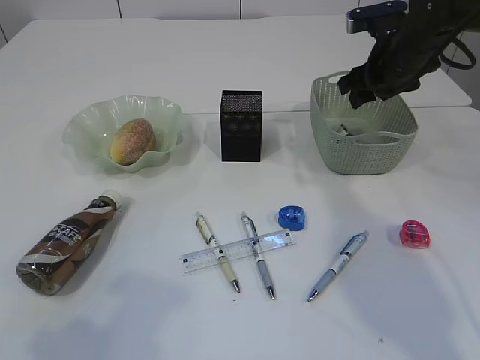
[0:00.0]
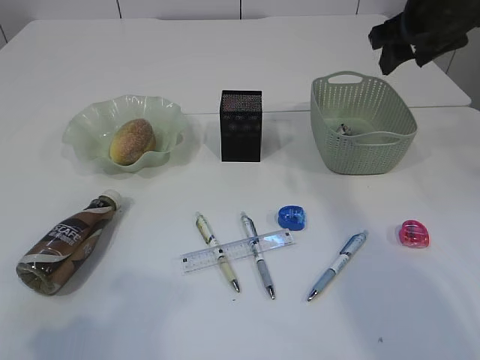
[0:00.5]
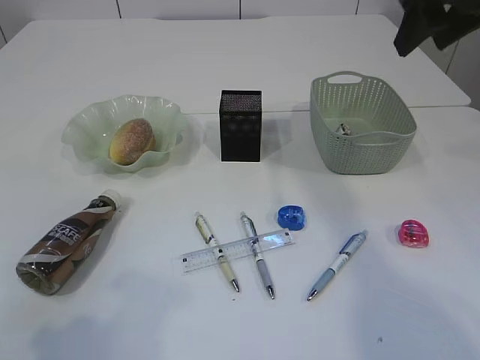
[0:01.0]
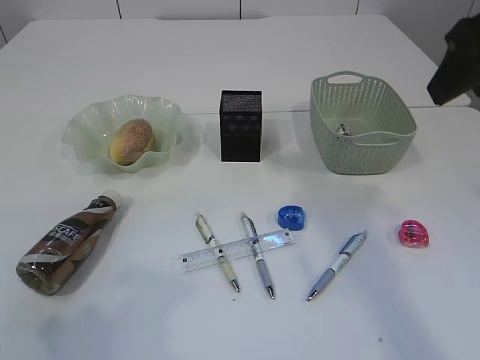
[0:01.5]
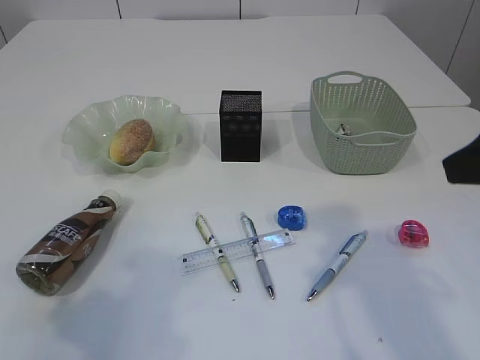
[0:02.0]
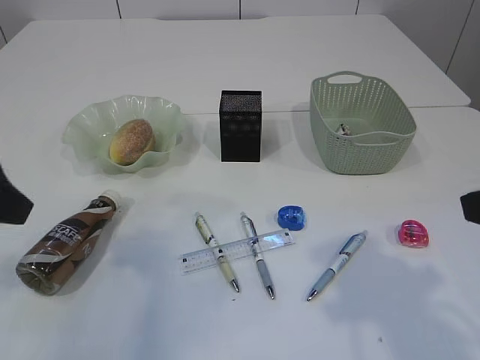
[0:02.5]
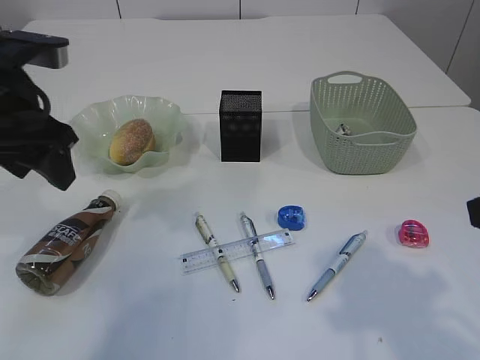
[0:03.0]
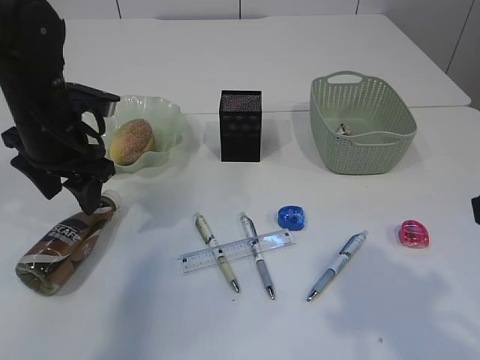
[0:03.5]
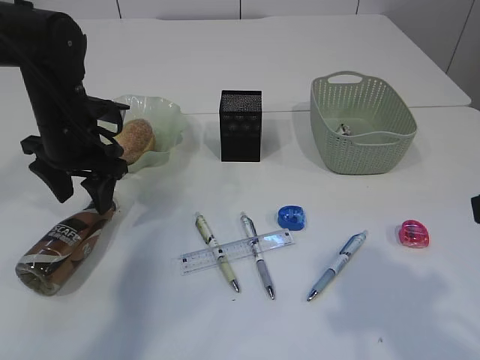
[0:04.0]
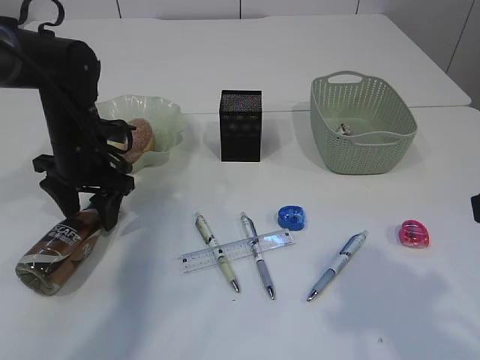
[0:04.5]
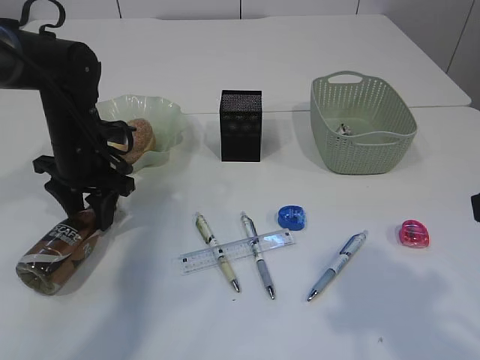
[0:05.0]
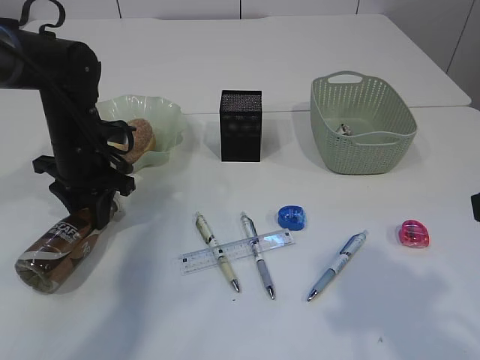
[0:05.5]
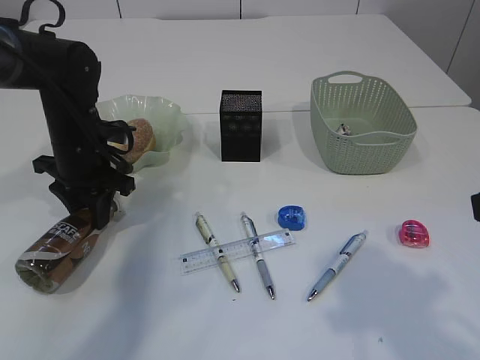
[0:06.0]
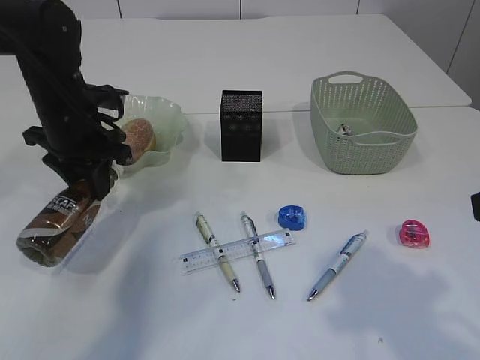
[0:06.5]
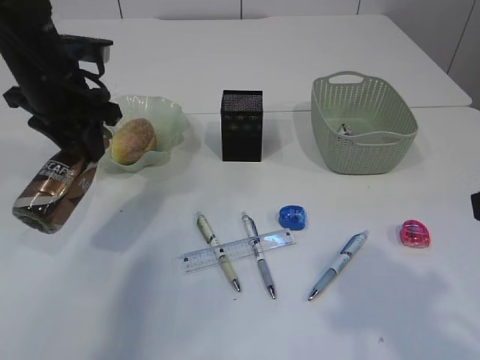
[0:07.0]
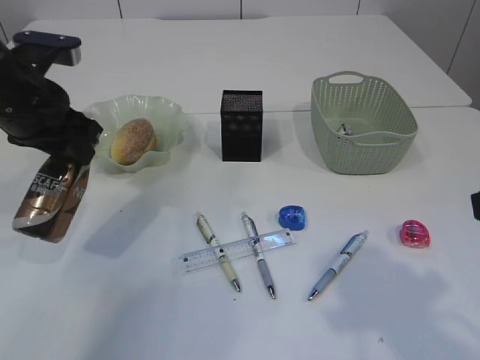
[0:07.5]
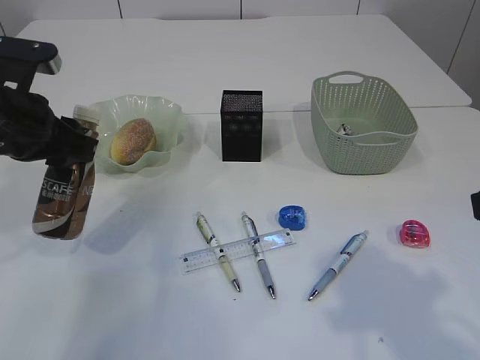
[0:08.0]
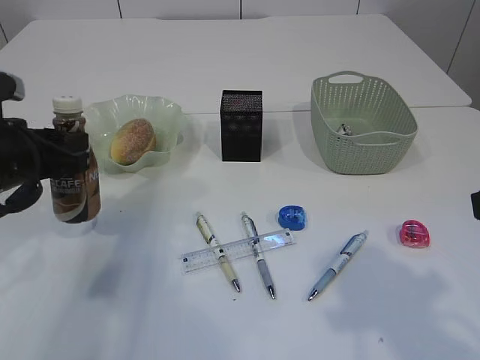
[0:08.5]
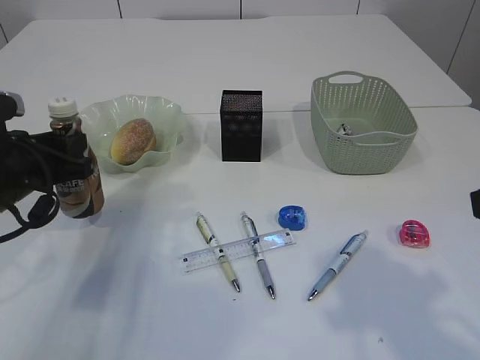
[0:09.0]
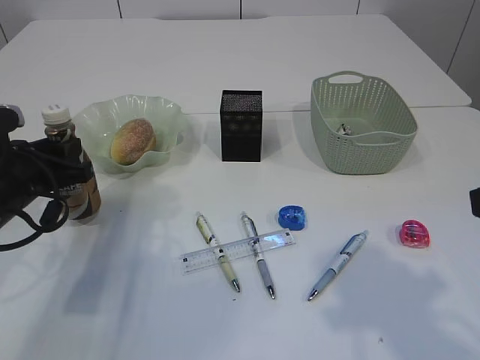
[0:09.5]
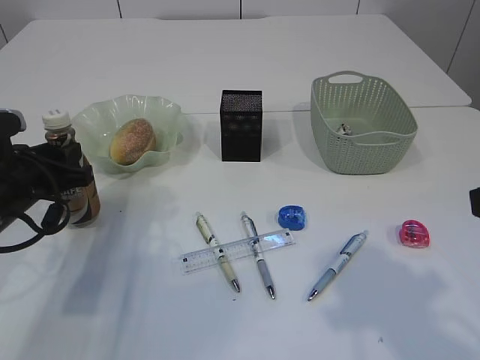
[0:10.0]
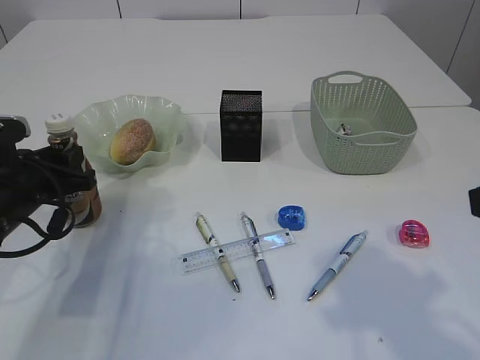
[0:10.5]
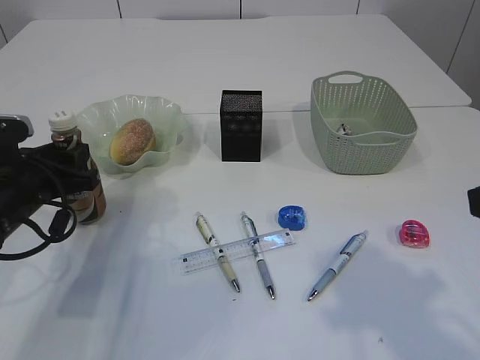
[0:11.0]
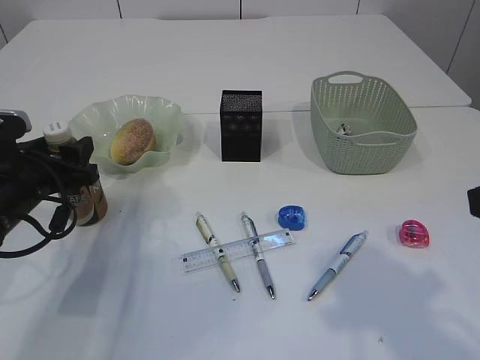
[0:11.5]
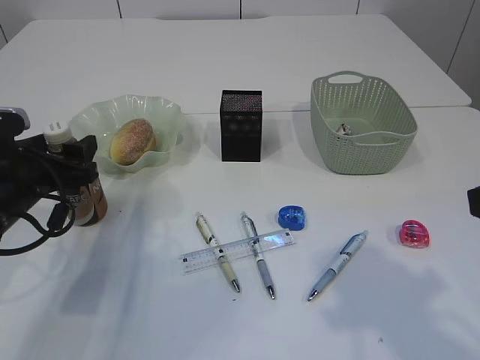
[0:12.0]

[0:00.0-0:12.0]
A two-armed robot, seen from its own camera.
Step, 0:00.5 to 0:06.5: Pick up the bottle with the left arm.
0:00.0 to 0:02.0: The right gripper travels backward by approximately 25 cm.
0:02.0 to 0:04.0: The left gripper goes approximately 30 cm forward. The right gripper moves backward, about 5 cm.
0:04.0 to 0:06.0: The left gripper closes up.
0:06.0 to 0:08.0: The left gripper shifts some 15 cm backward and upward.
0:08.0 to 0:10.0: The left gripper travels downward by about 10 cm.
0:10.0 to 0:12.0: The left gripper opens.

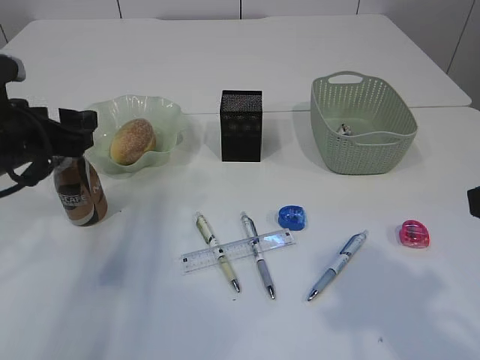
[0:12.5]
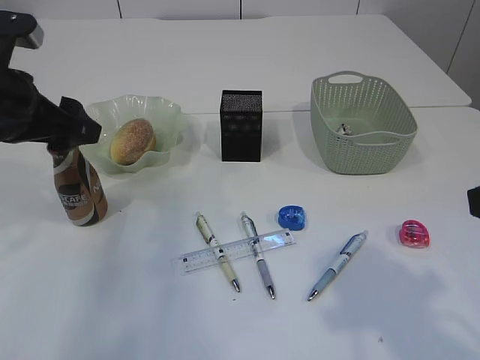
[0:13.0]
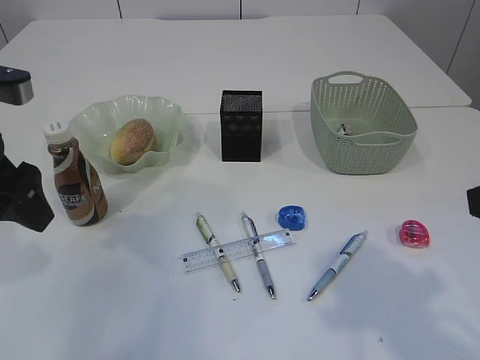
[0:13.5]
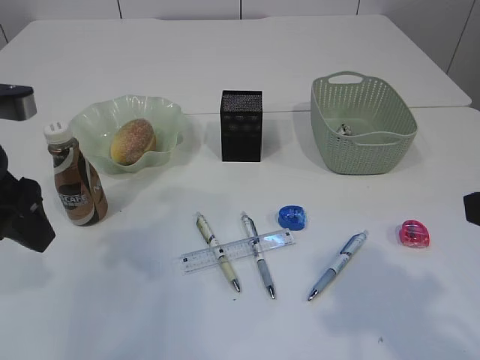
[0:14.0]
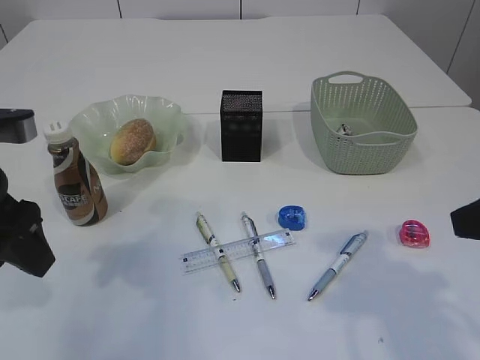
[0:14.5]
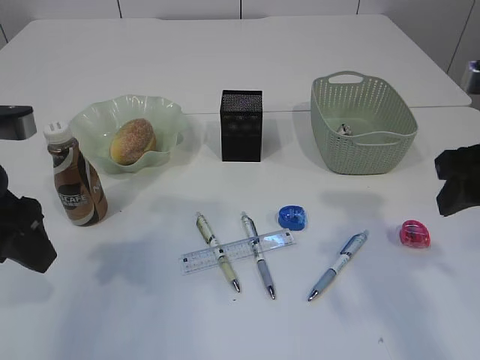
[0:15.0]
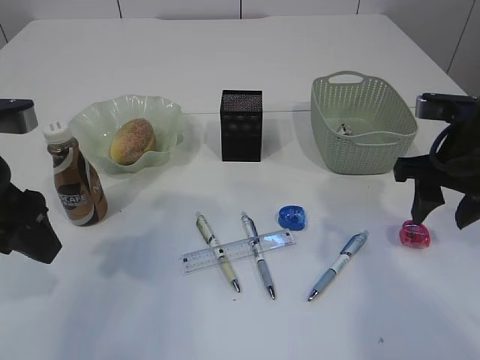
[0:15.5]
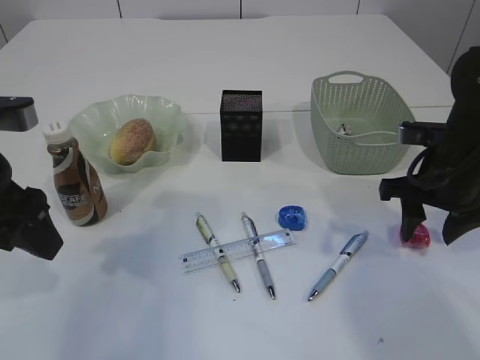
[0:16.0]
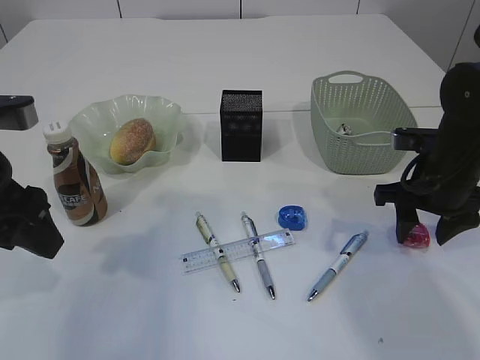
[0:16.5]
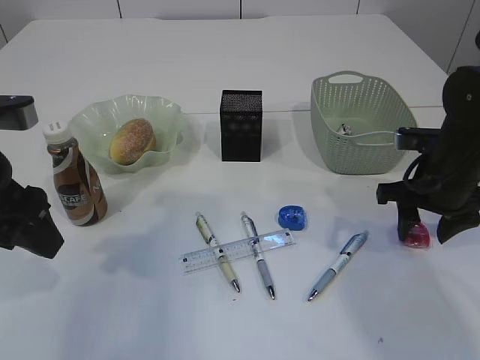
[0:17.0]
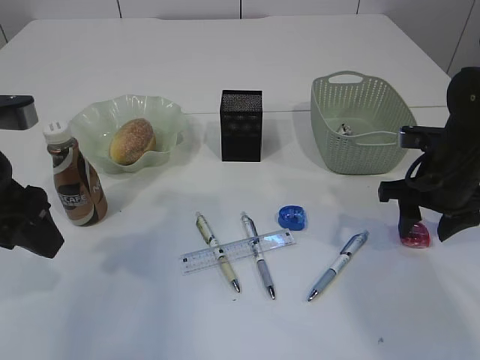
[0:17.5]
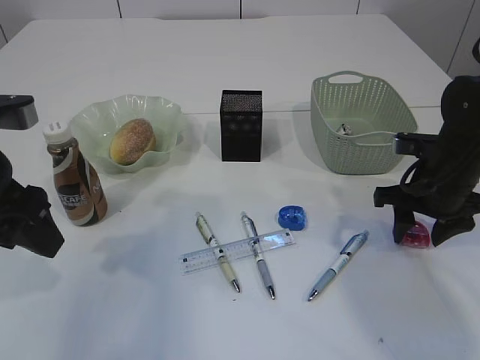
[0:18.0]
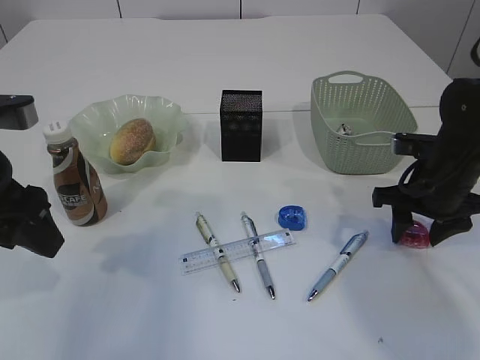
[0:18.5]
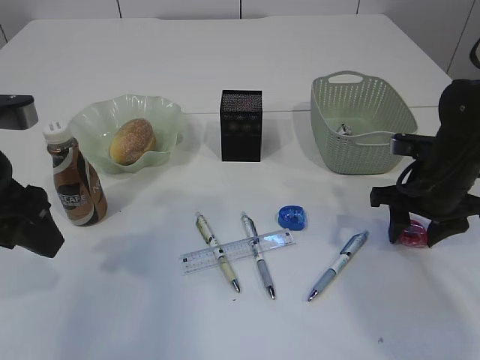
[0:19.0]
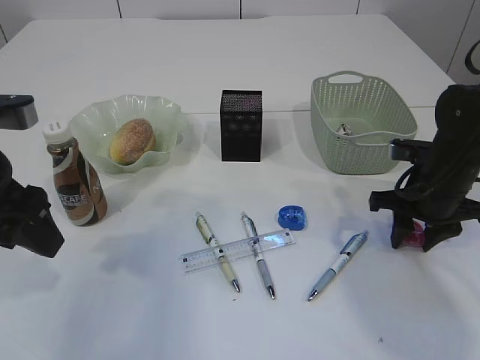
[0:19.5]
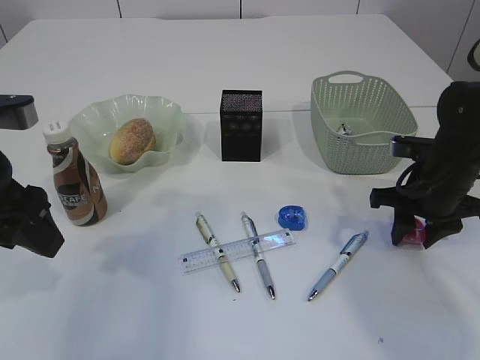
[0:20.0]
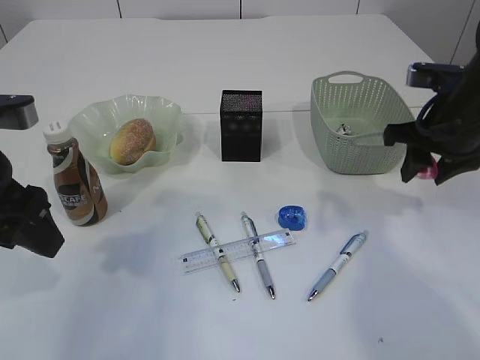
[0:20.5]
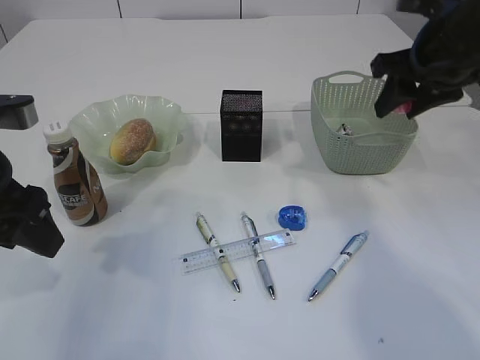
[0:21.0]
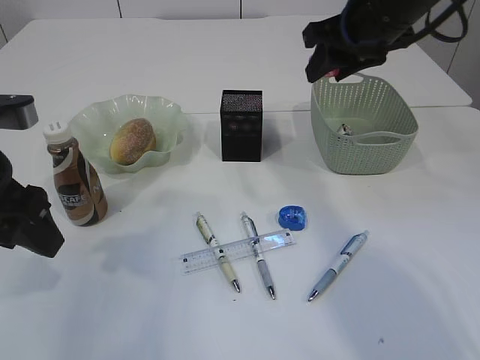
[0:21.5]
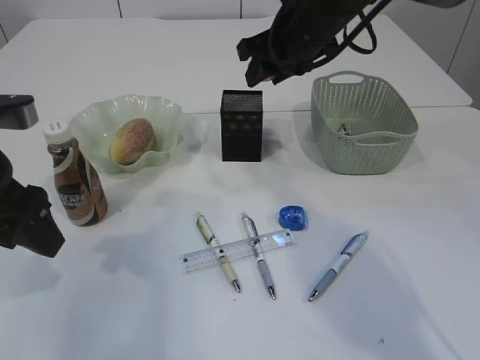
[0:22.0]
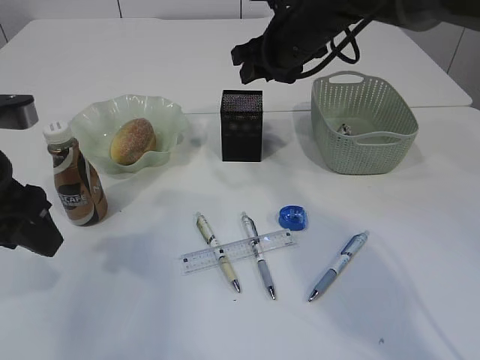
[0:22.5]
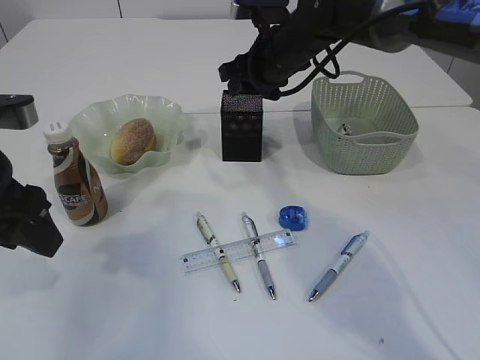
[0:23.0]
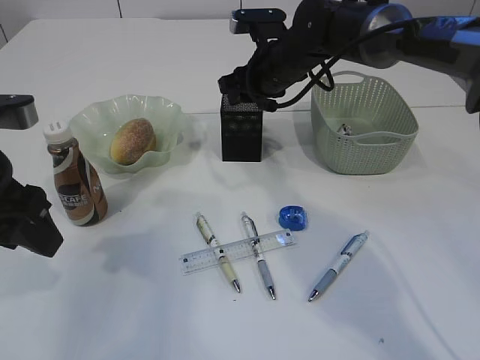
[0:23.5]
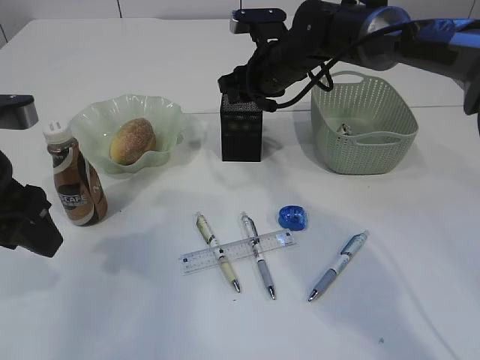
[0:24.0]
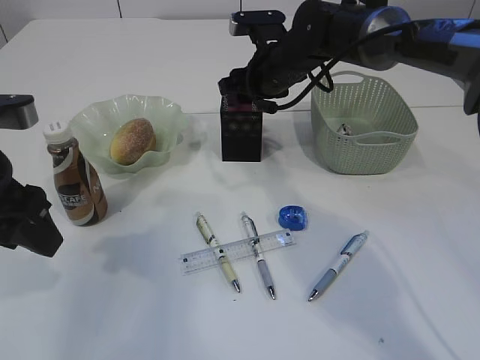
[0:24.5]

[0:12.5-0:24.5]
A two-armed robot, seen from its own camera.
Step, 0:13.5 to 0:20.5: Pick up the red pencil sharpener.
0:12.5 to 0:14.5: The left gripper is displaced backward by about 5 cm, and closes up.
0:14.5 to 0:16.5: The right gripper goes some 20 cm forward and downward.
0:16.5 to 0:18.5: The grippers move only a little.
0:18.5 to 0:20.5: The right gripper moves upward, approximately 10 cm.
0:20.5 to 0:22.5: The right gripper travels to the left and forward by about 20 cm.
0:22.5 to 0:24.5: The right gripper moves downward, roughly 5 cm.

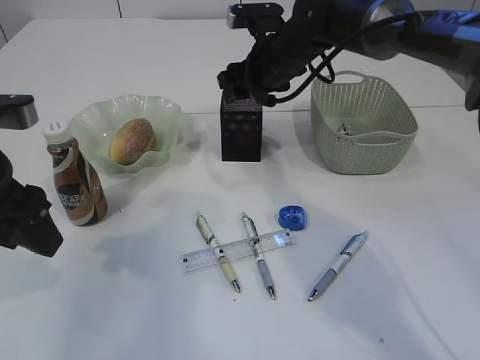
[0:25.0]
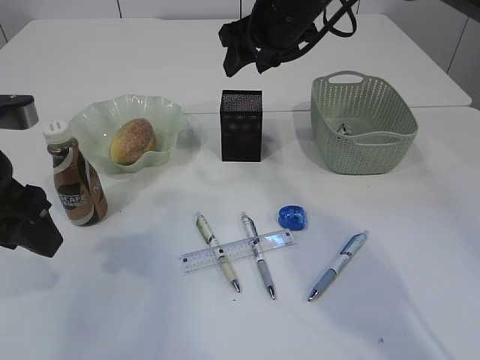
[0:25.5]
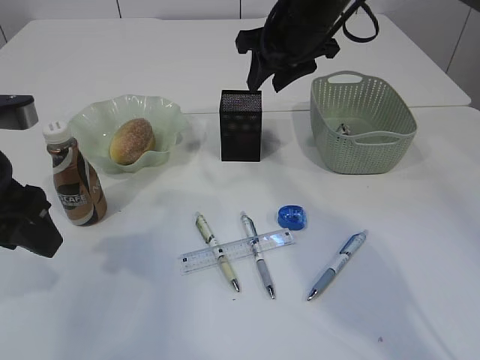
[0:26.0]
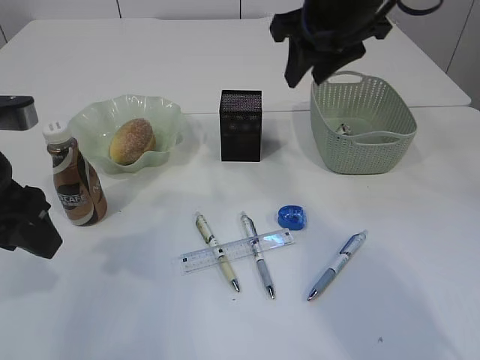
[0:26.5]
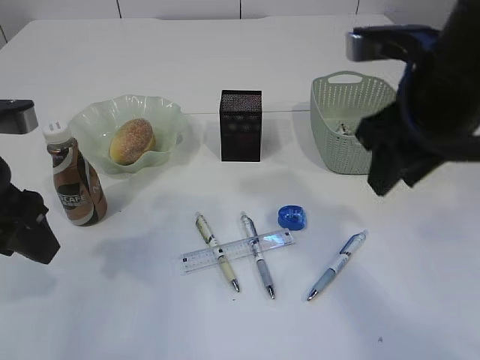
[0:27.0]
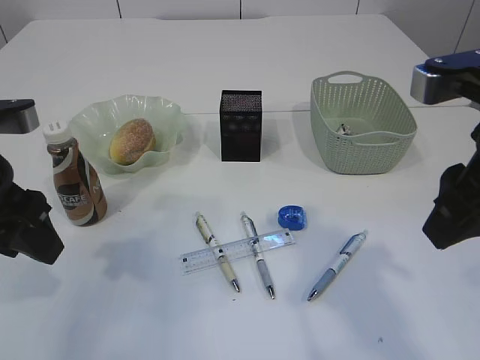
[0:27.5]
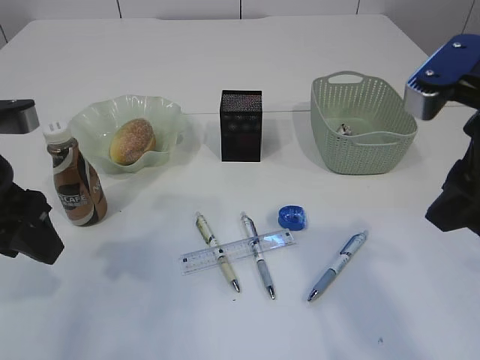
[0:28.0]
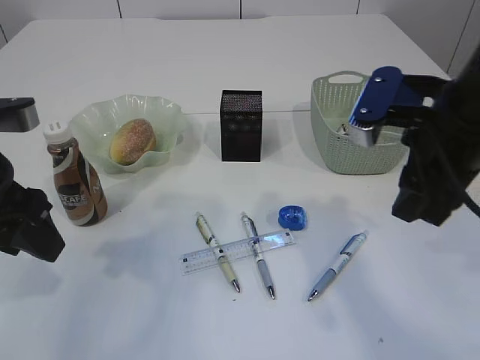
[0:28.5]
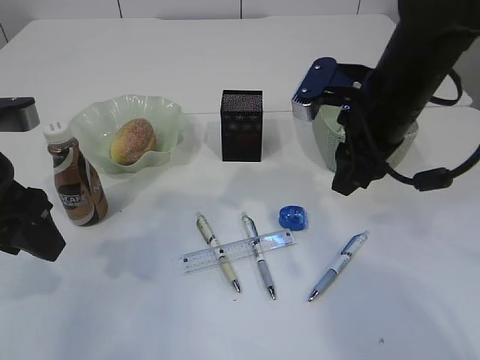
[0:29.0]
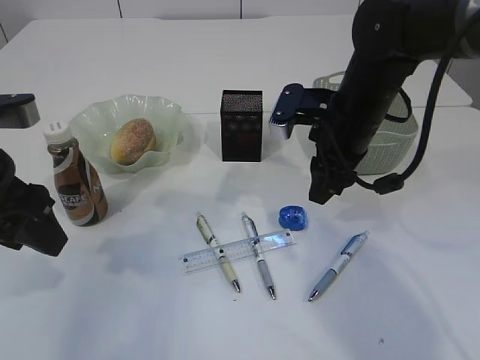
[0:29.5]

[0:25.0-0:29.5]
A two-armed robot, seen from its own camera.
0:25.0 to 0:27.0: The right gripper shifts approximately 25 cm backward and to the right.
0:27.0 to 0:29.5: The right gripper shifts about 15 cm forward and downward.
